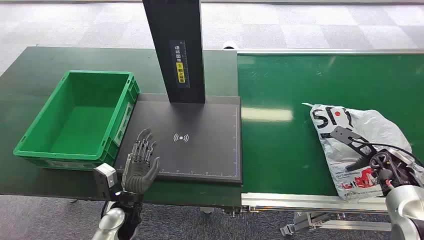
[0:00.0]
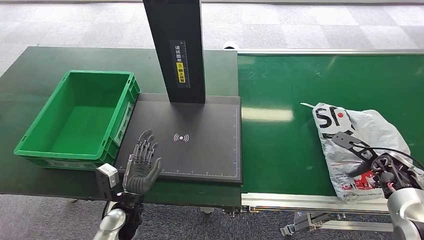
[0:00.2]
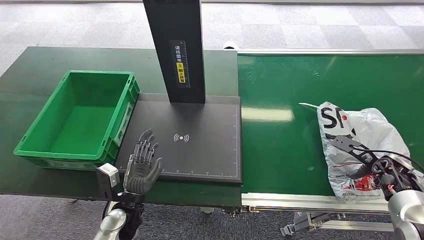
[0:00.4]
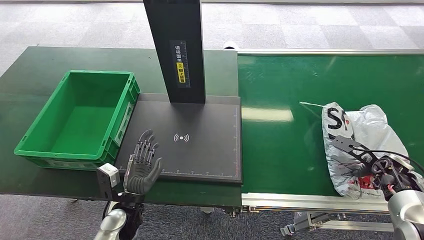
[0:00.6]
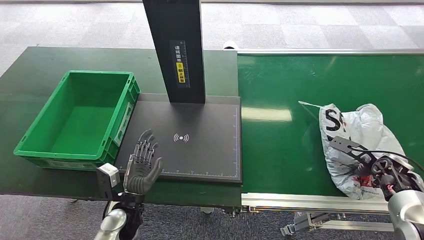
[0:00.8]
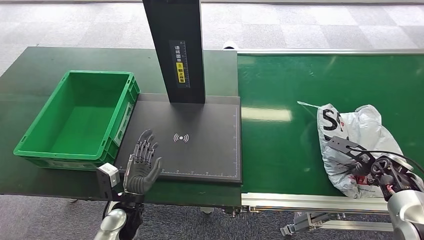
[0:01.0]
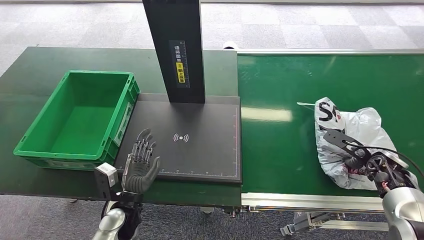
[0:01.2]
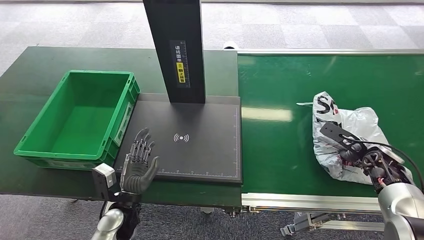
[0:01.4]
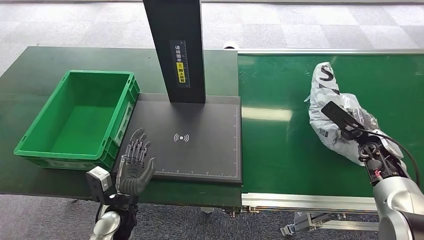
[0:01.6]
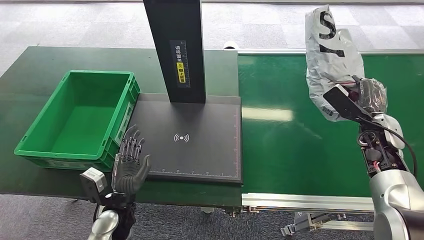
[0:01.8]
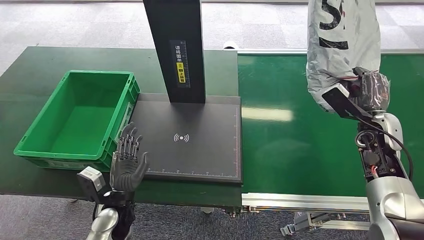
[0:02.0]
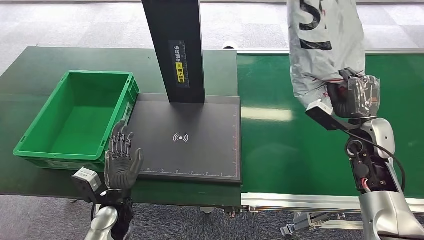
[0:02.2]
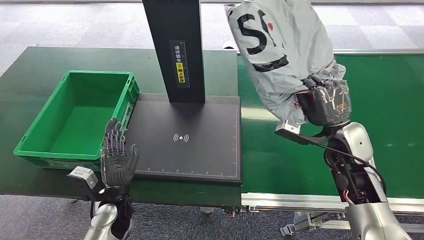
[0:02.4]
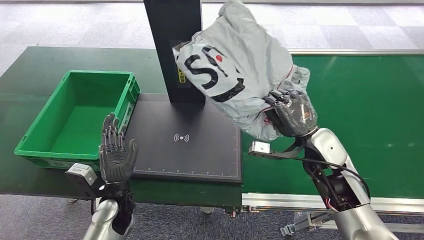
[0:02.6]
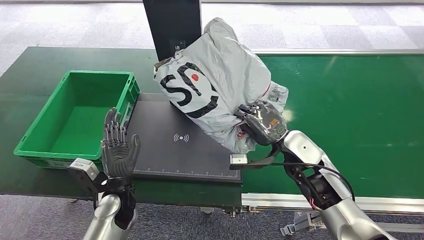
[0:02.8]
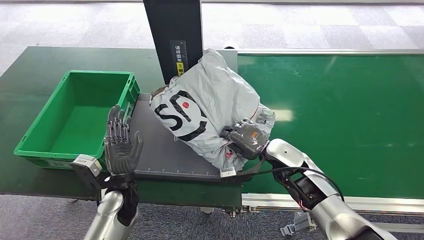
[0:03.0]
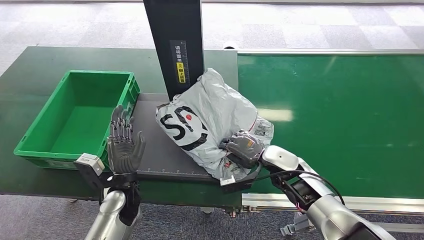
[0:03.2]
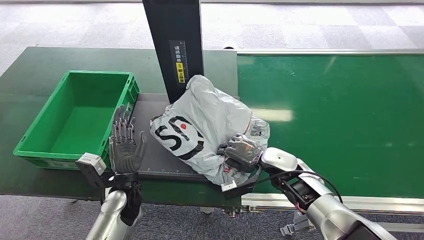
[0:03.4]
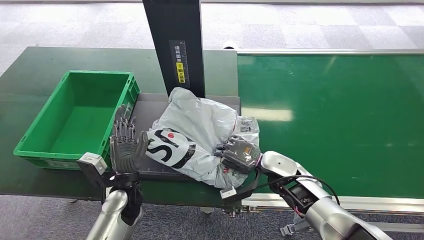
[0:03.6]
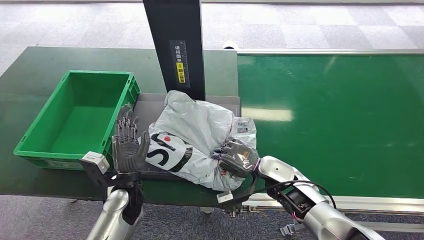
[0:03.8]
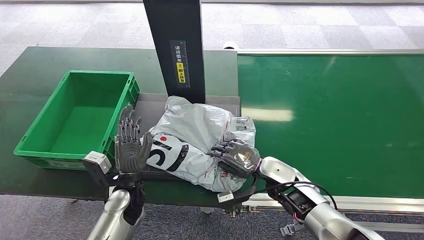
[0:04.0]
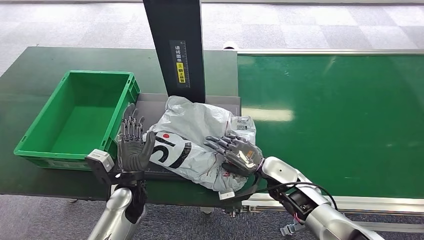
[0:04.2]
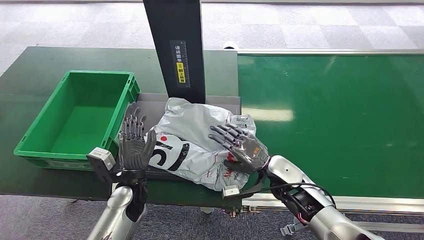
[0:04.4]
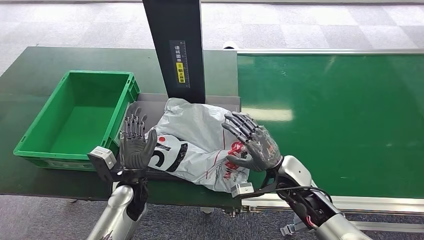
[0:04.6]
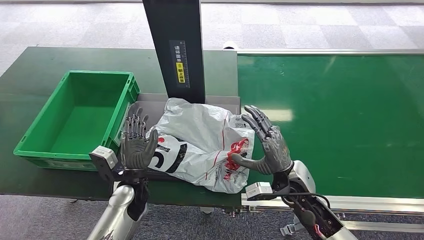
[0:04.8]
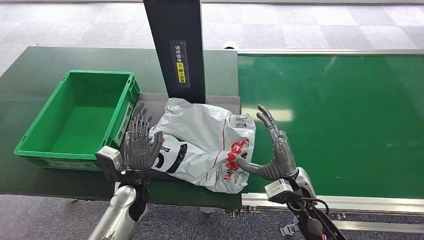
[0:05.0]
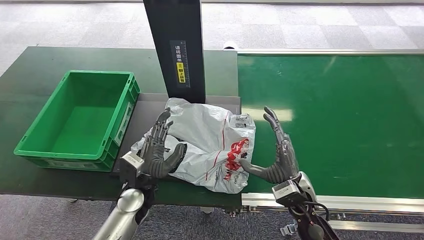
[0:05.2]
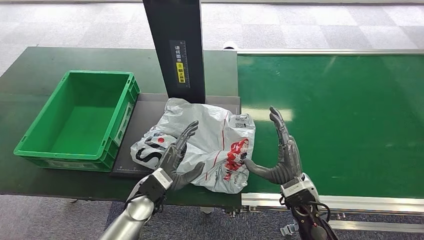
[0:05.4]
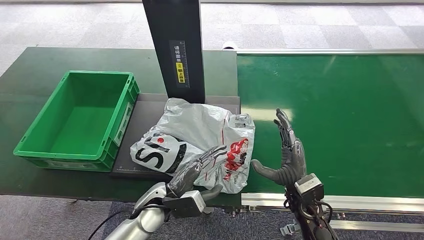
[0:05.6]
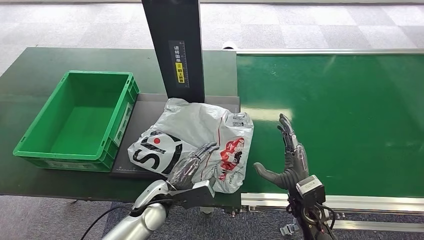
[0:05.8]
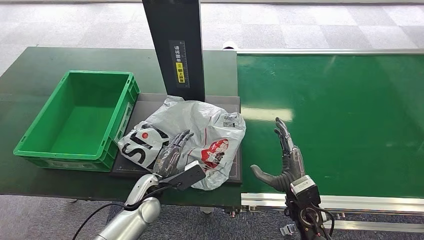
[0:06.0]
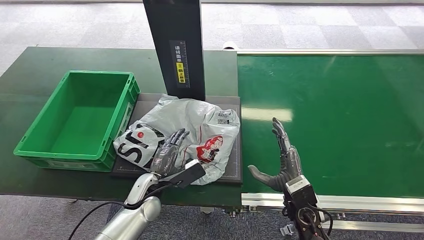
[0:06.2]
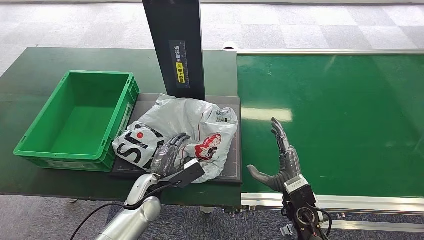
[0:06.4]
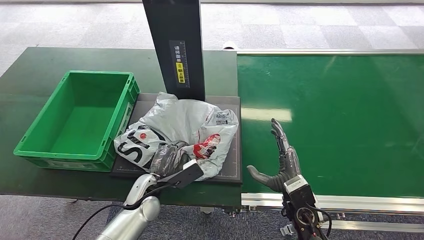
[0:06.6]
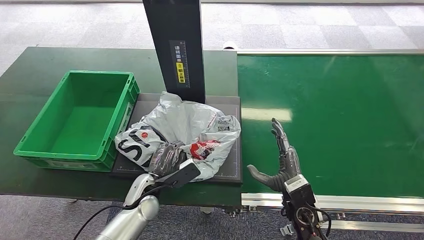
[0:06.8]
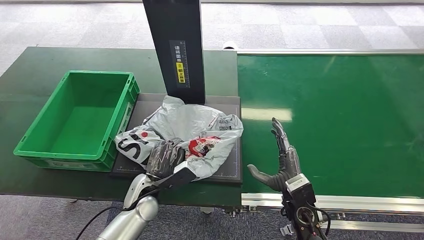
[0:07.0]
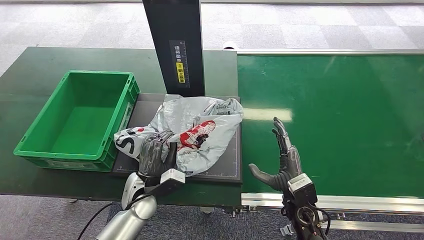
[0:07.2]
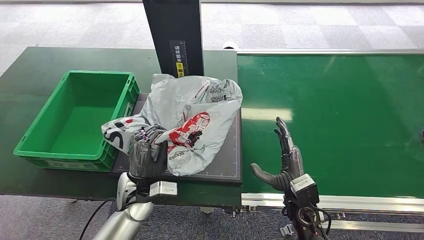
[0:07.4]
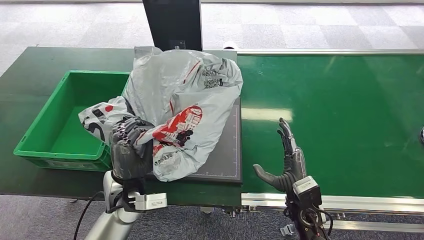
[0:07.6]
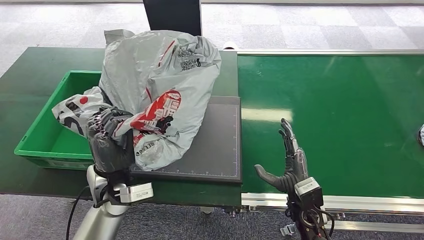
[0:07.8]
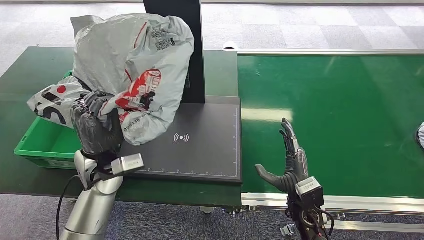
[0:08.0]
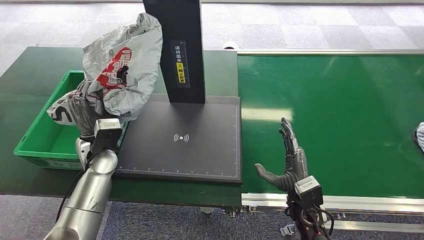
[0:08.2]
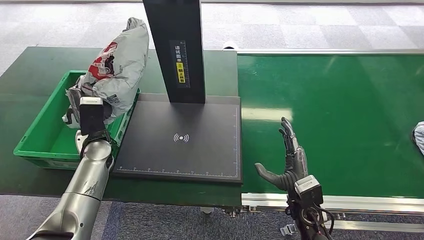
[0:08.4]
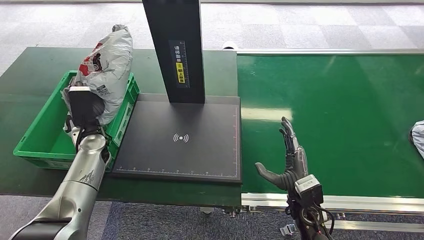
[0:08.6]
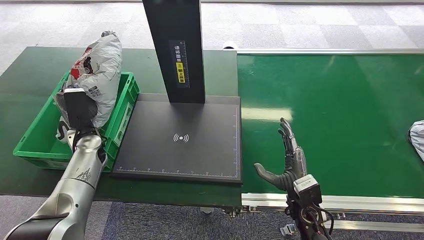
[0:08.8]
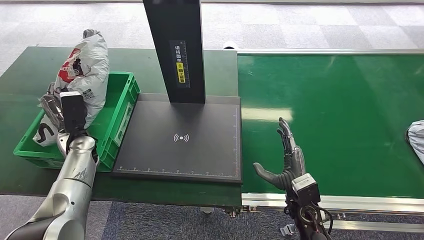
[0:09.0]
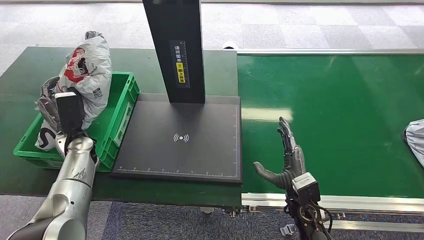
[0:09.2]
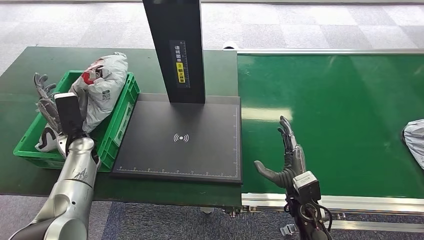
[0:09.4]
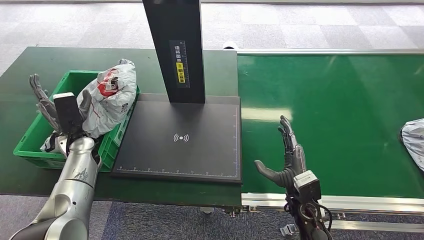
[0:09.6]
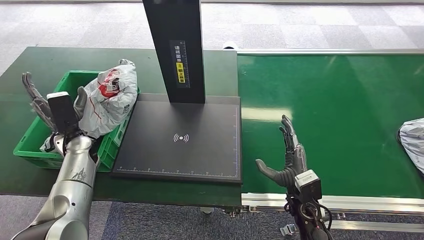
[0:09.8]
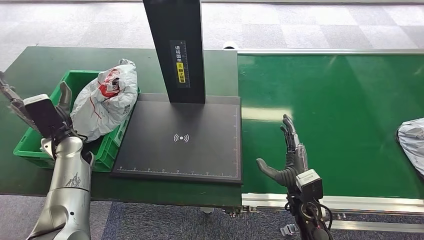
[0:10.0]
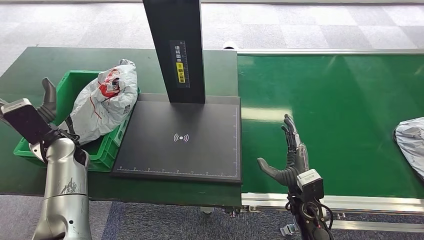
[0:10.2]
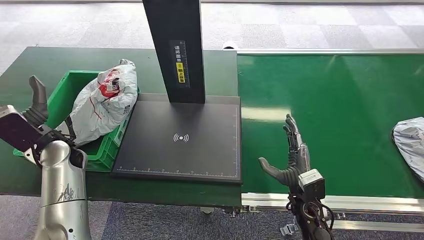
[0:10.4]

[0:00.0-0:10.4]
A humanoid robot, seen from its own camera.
Step, 0:00.0 to 0:01.4: Pick up the package from the conveyor belt.
Step, 0:01.8 to 0:04.8: Place the package onto the inbound machine.
Step, 0:05.0 to 0:07.8: Pick up the package from the inbound machine.
Step, 0:08.0 to 0:10.2: Place the package into the parcel locker.
0:03.0 to 0:04.4: The right hand changes place by about 5 cm.
0:04.4 to 0:06.0: The right hand goes some 10 cm backward.
0:09.0 to 0:10.4: The left hand goes some 5 cm upward.

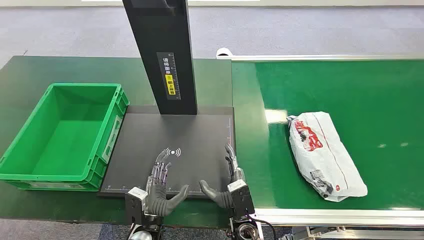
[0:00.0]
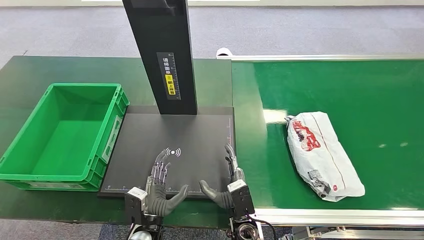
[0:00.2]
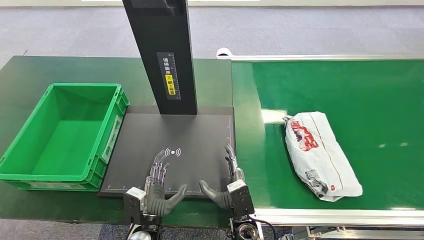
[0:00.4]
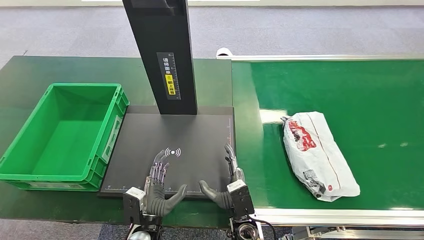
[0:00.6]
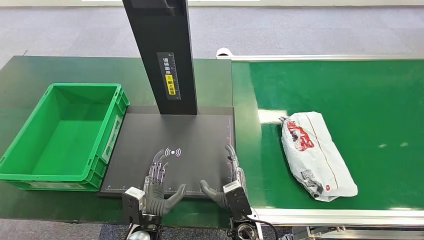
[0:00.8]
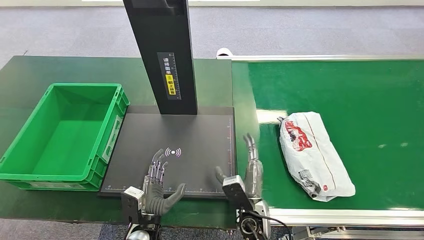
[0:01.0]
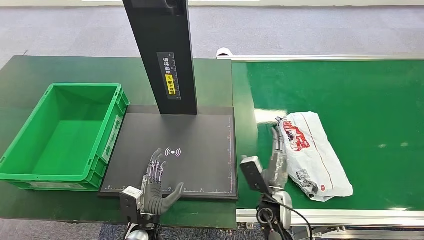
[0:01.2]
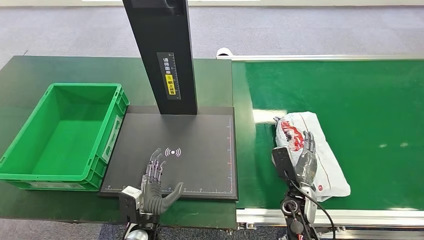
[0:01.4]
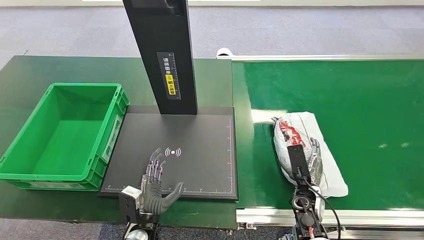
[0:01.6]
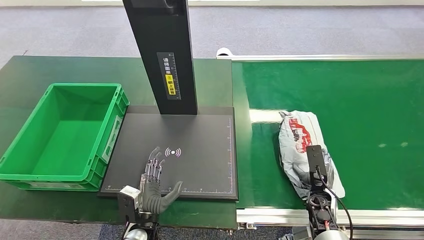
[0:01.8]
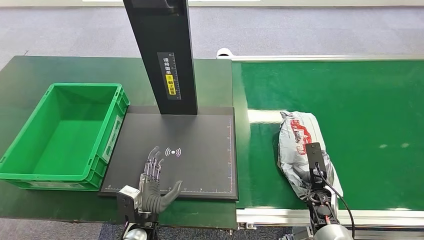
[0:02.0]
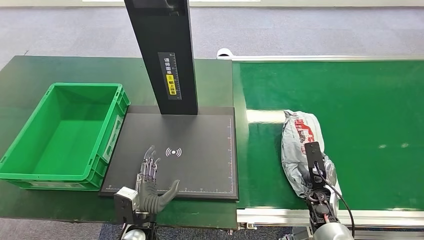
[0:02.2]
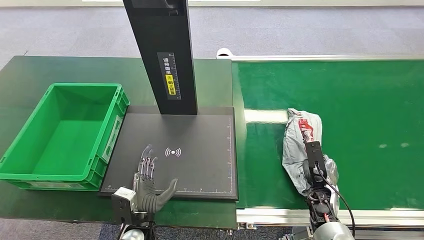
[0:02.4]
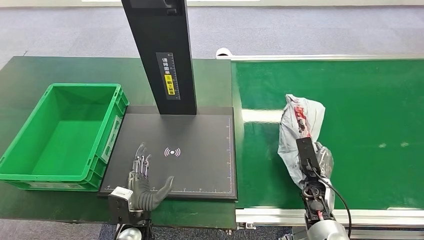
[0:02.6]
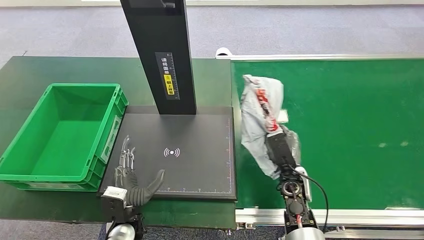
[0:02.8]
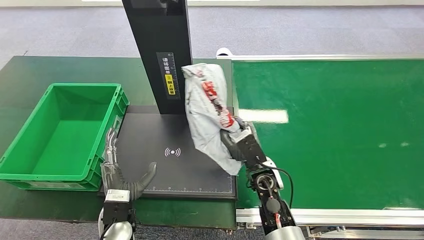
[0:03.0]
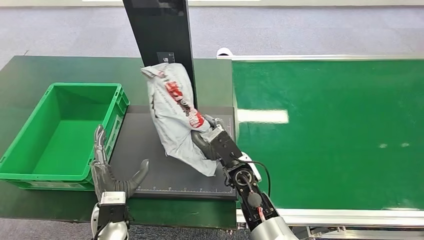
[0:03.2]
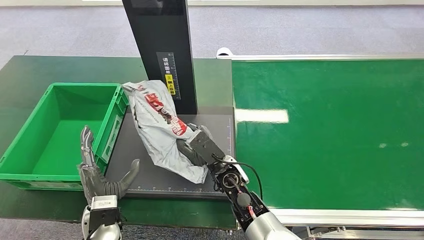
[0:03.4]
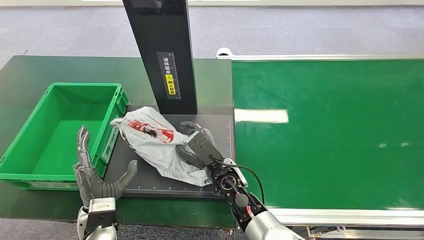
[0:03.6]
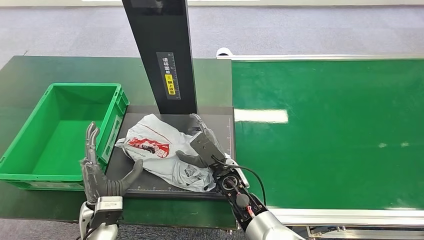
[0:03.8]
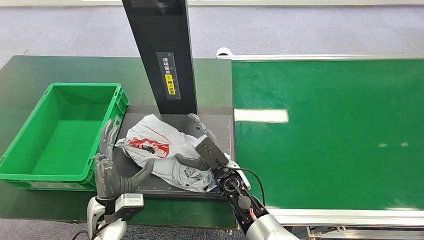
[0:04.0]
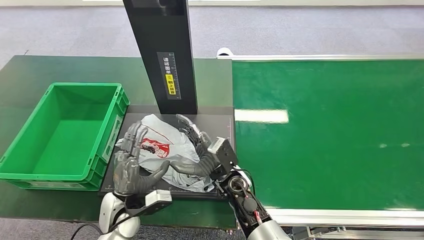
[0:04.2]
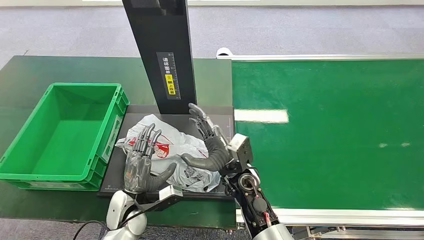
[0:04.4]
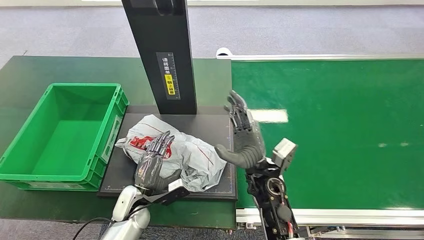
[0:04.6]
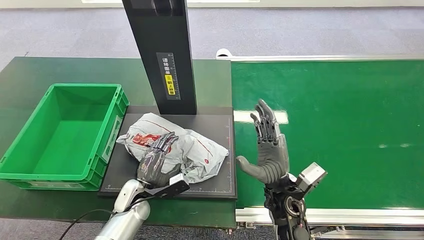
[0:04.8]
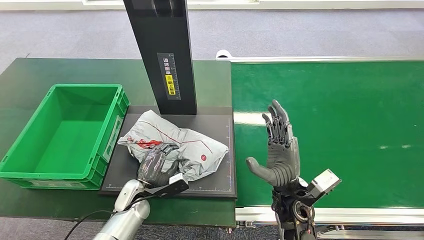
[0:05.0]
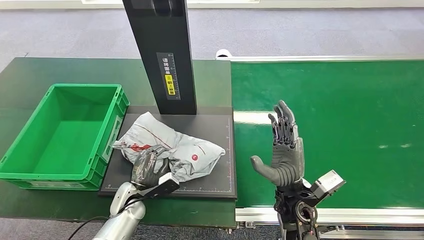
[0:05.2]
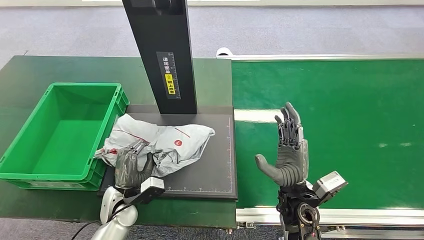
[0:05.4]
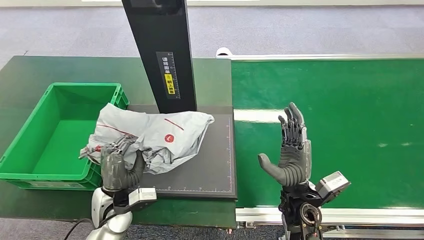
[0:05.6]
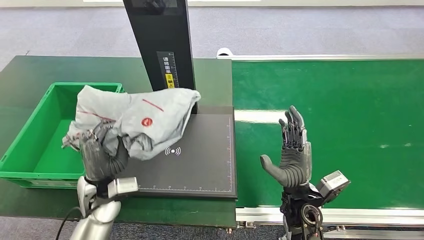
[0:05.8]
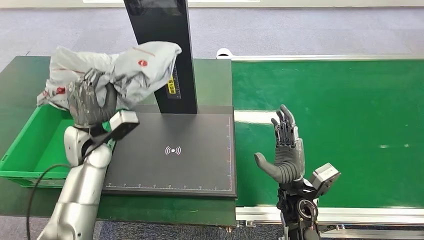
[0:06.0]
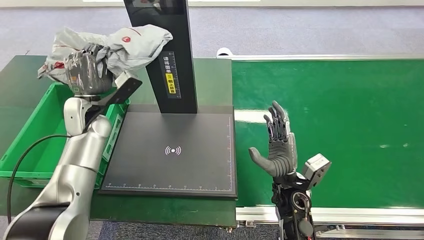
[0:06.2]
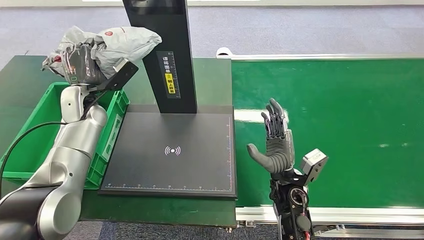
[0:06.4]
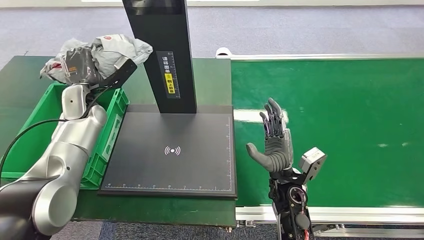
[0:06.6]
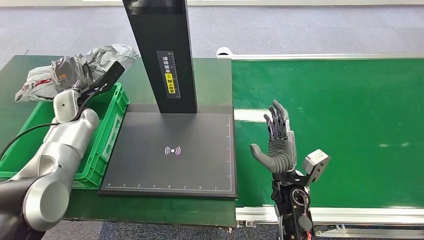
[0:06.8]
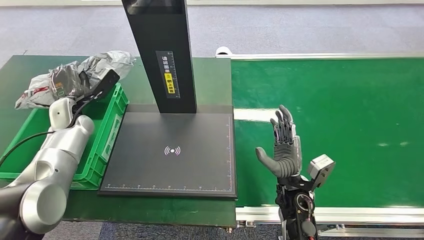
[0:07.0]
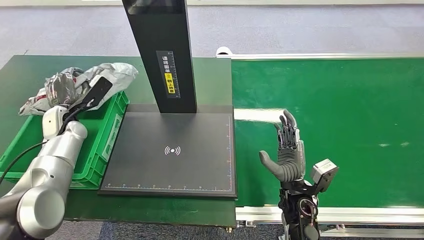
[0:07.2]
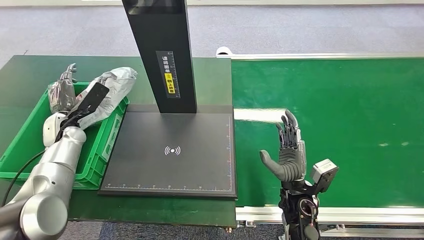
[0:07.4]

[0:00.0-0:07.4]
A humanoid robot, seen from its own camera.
Step, 0:00.0 to 0:03.0: Pick up the package from the conveyor belt.
Step, 0:03.4 to 0:04.2: Place the package onto the inbound machine.
Step, 0:04.4 to 0:06.4: Pick up the package from the inbound machine.
0:03.0 to 0:04.4: The right hand travels to the left by approximately 5 cm.
